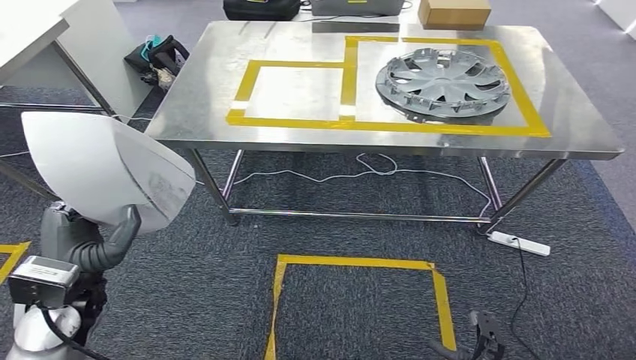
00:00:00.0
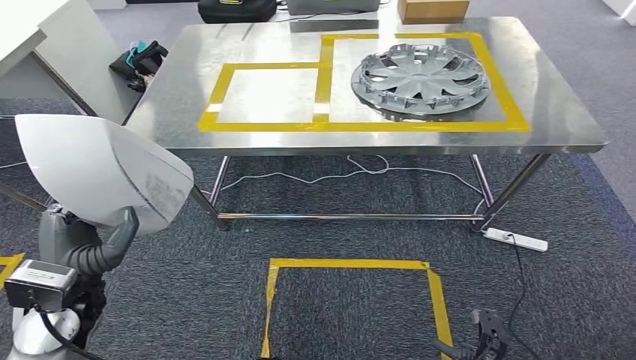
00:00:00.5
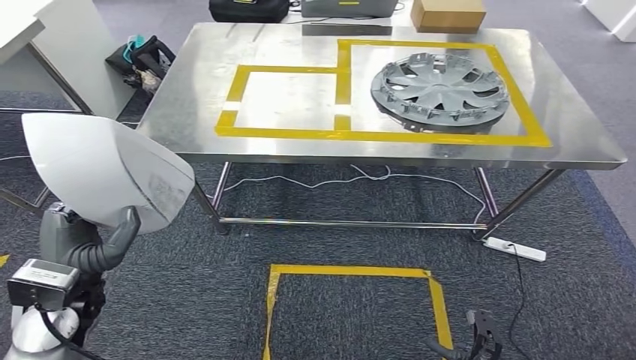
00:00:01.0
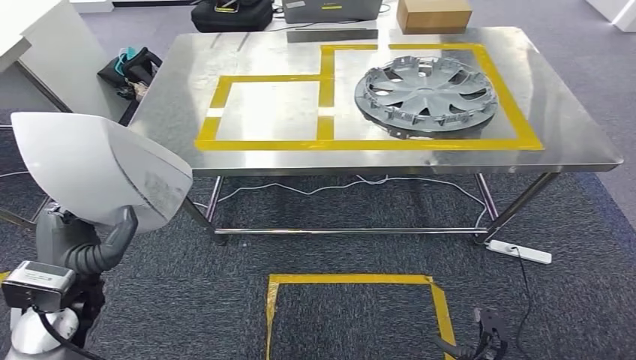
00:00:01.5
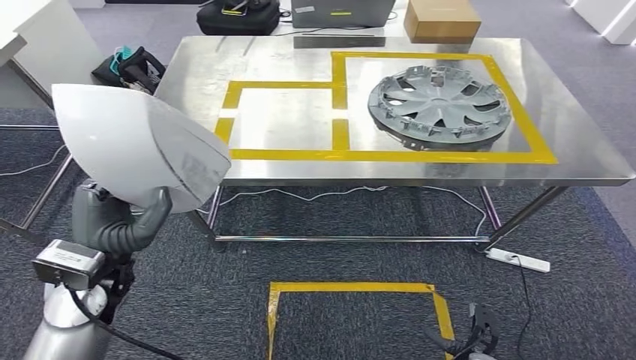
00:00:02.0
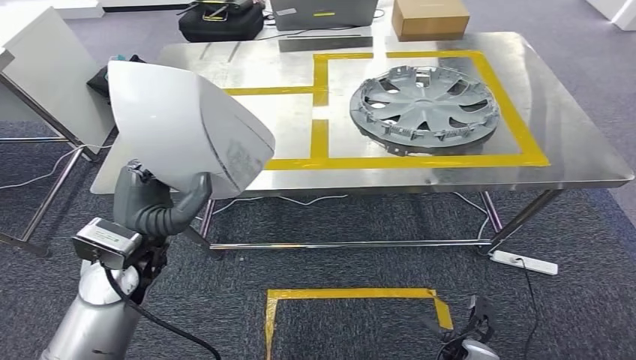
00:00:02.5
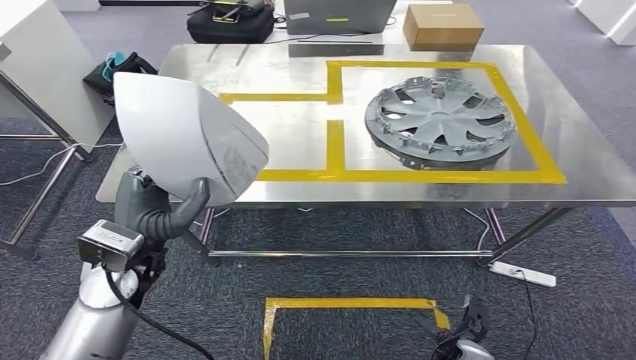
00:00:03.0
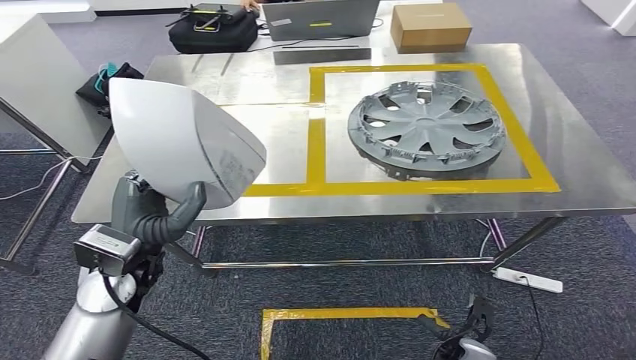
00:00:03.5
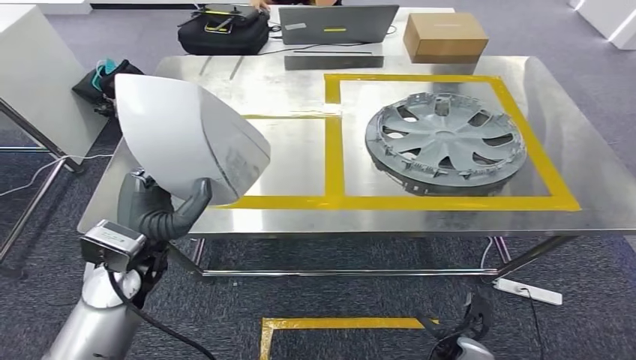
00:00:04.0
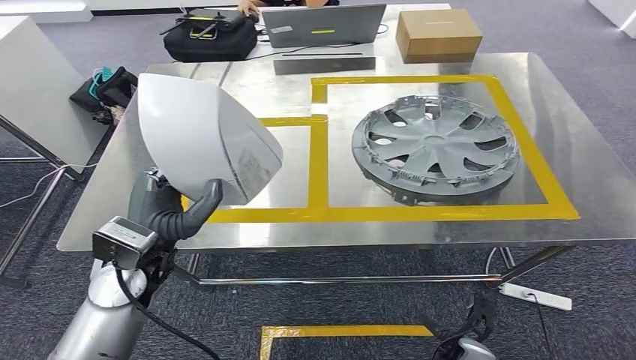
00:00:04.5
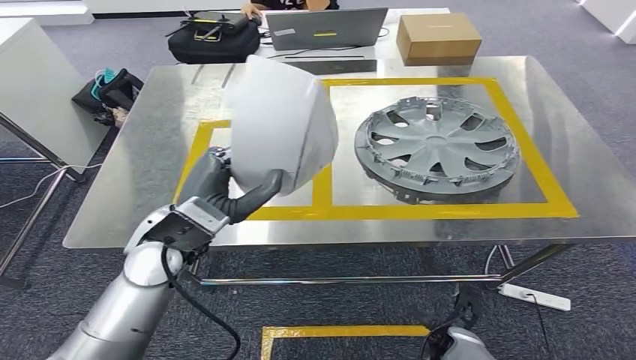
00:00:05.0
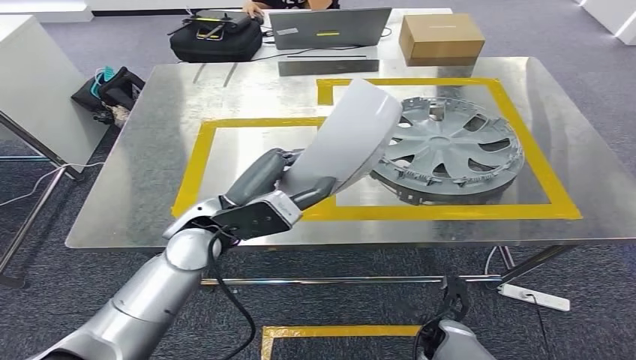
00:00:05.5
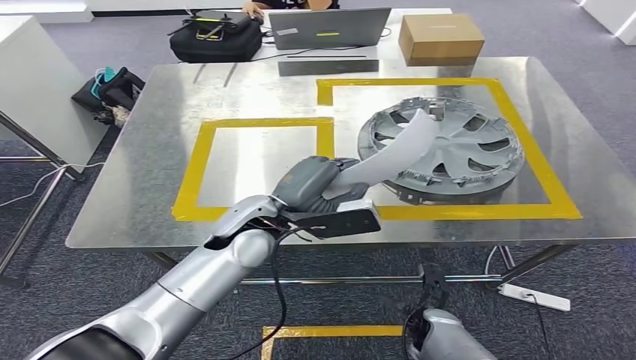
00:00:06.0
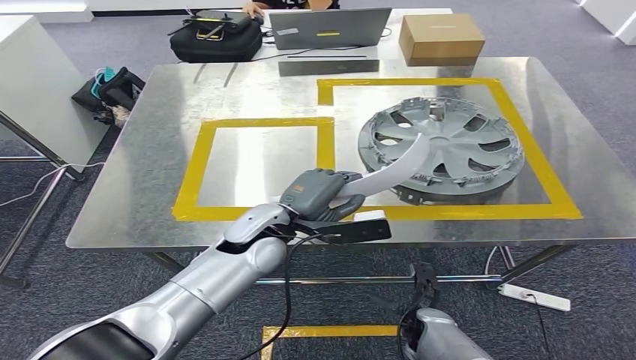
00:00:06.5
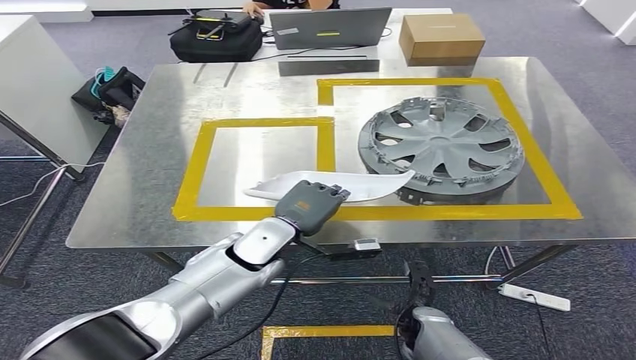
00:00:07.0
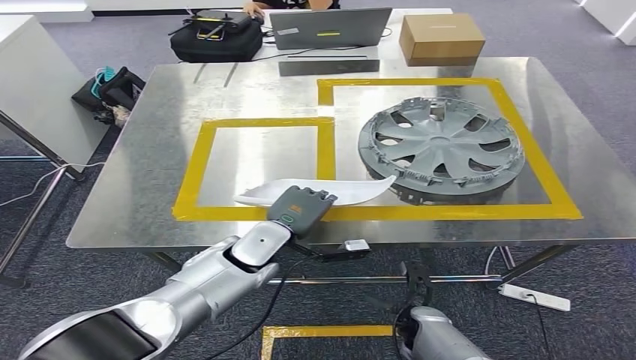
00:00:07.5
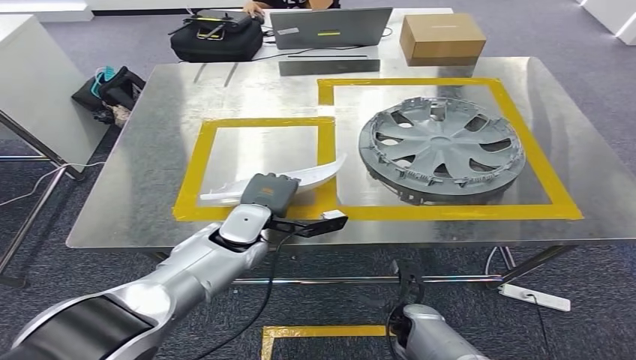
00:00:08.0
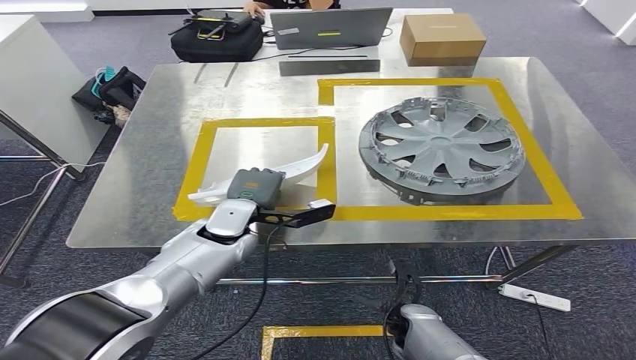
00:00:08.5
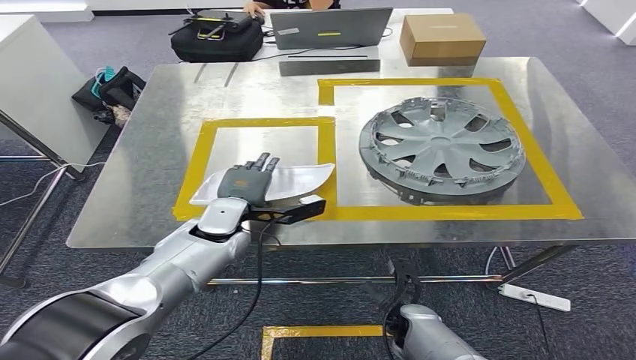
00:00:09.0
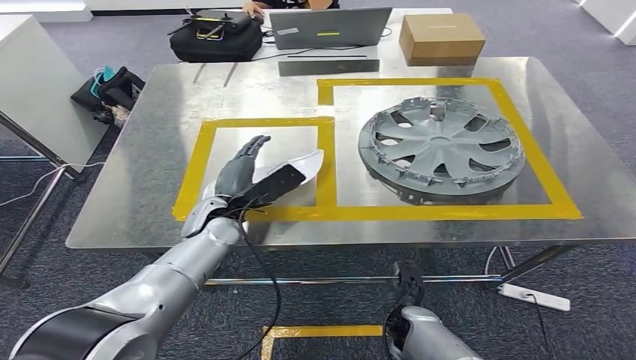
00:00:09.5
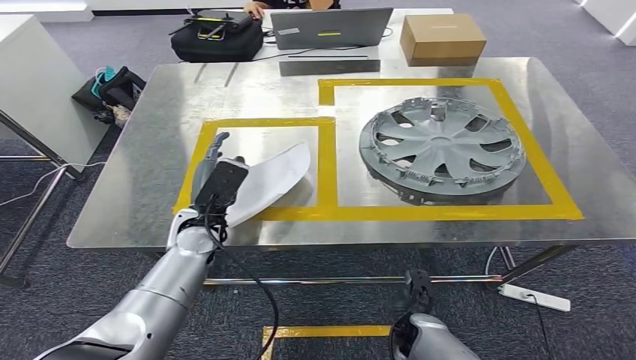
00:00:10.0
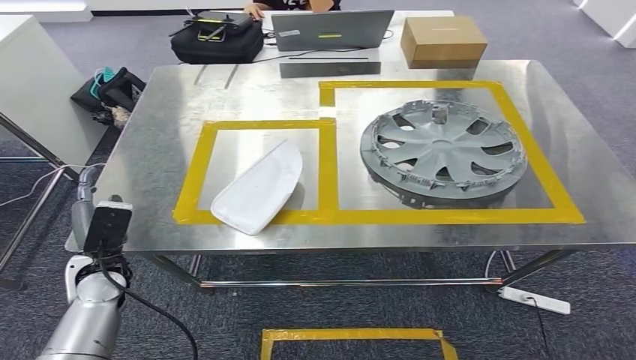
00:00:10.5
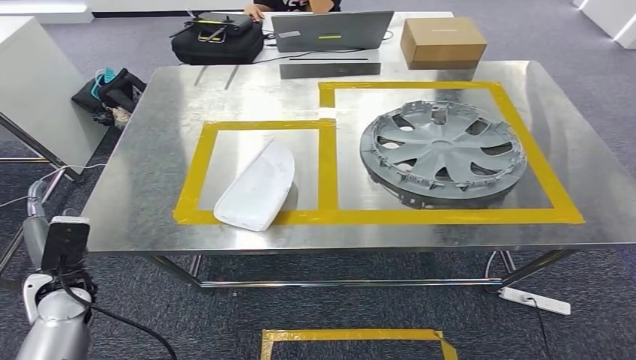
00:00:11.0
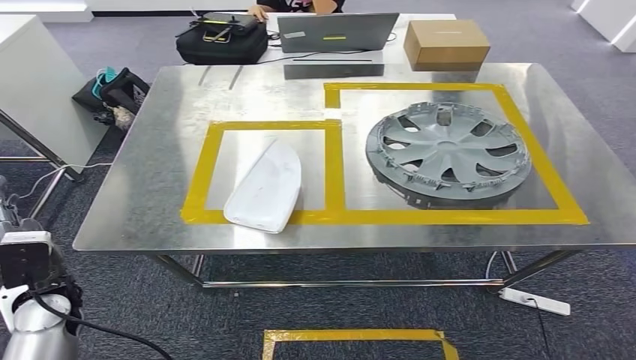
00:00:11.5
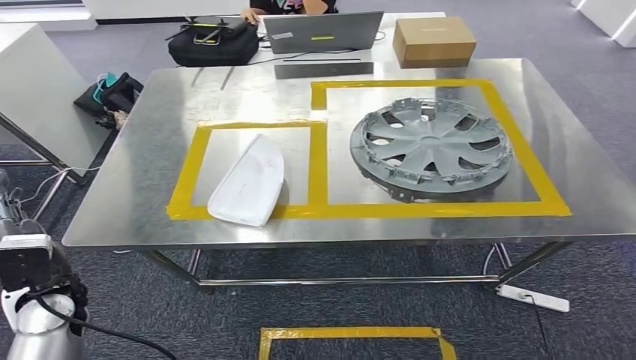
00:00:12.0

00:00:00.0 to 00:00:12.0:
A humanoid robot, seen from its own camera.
Step, 00:00:00.0 to 00:00:11.5: Insert the small component into the corresponding slot on the workbench.
00:00:06.0 to 00:00:08.0: The left hand moves downward, approximately 10 cm.
00:00:08.0 to 00:00:10.0: The left hand goes roughly 5 cm to the left.

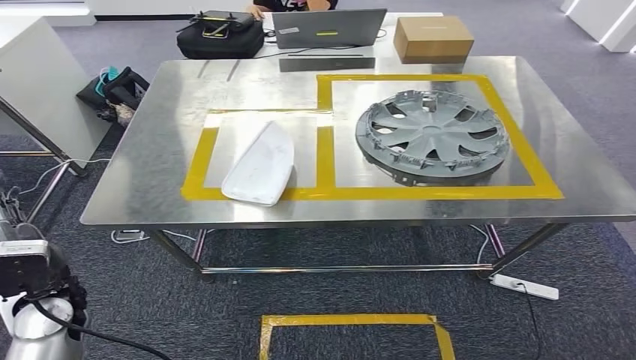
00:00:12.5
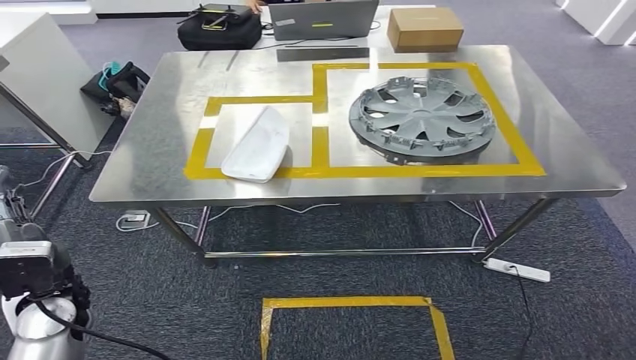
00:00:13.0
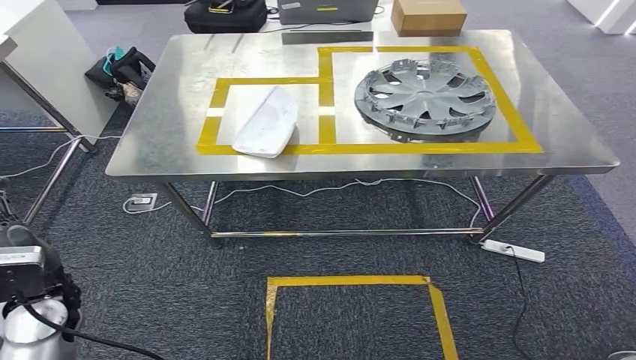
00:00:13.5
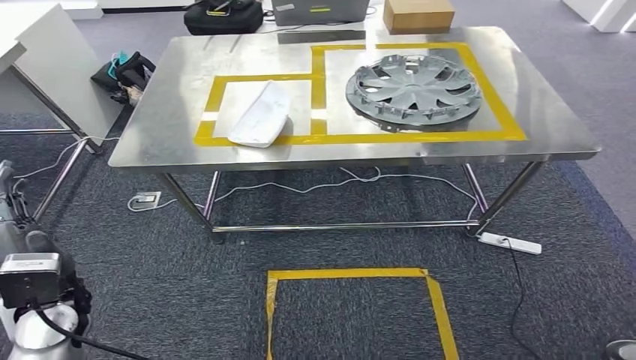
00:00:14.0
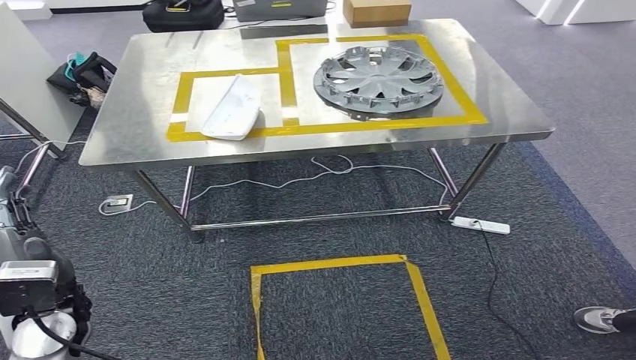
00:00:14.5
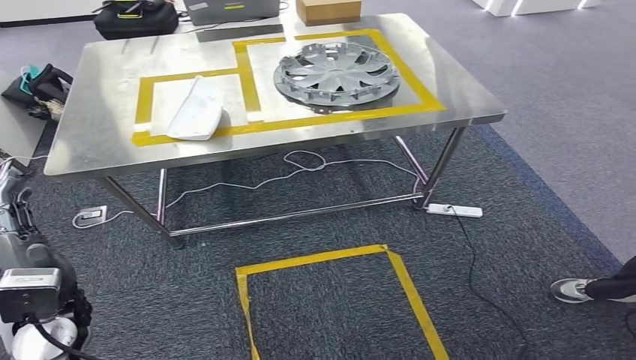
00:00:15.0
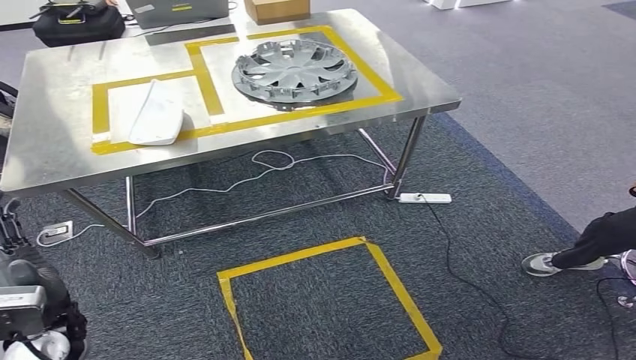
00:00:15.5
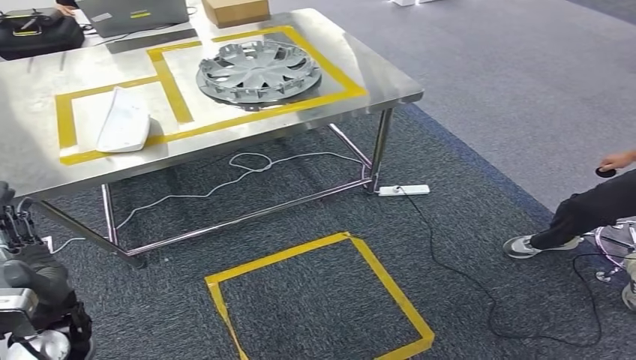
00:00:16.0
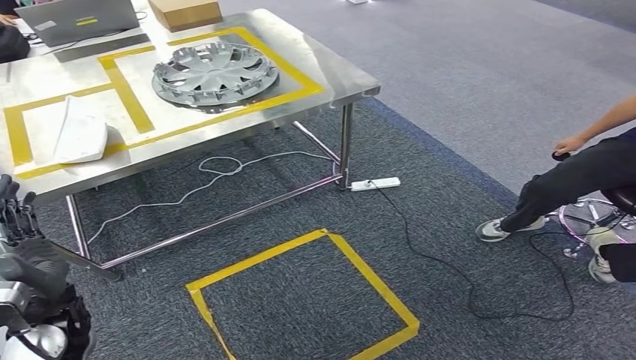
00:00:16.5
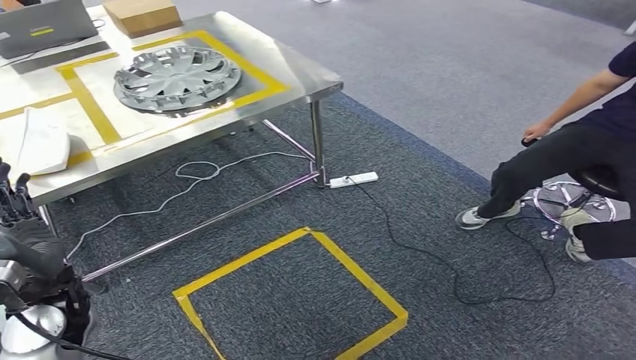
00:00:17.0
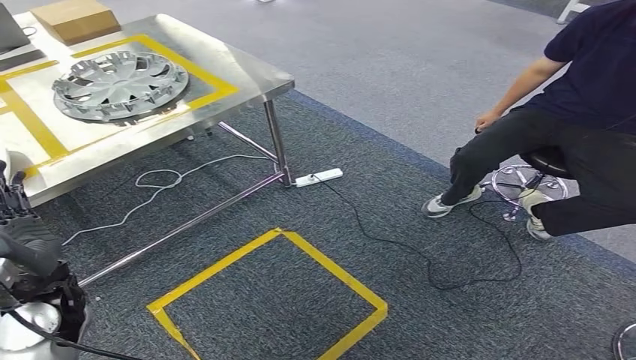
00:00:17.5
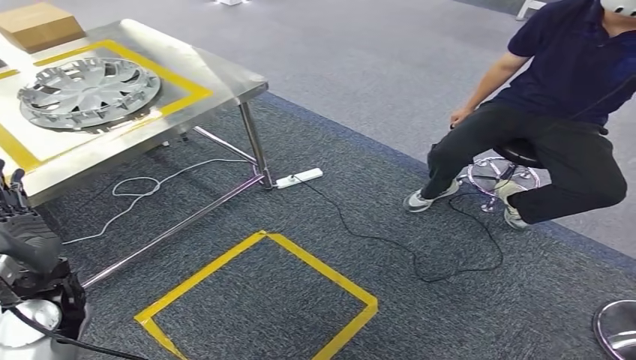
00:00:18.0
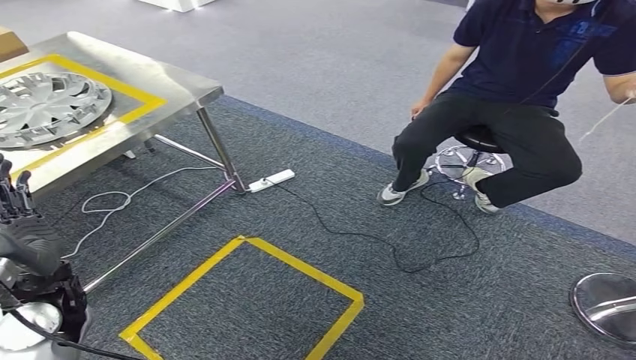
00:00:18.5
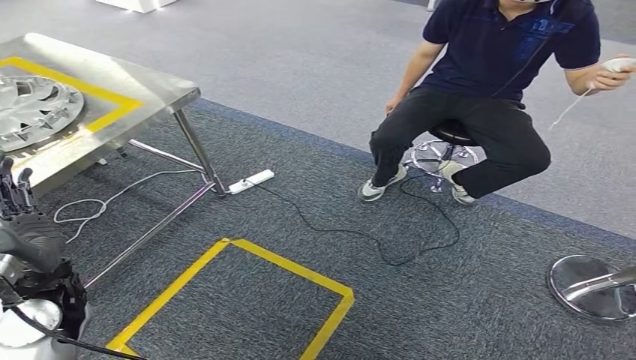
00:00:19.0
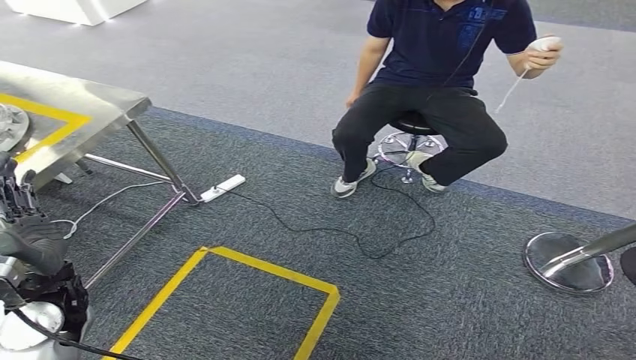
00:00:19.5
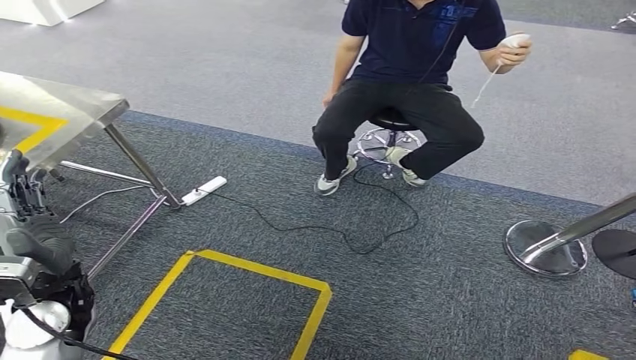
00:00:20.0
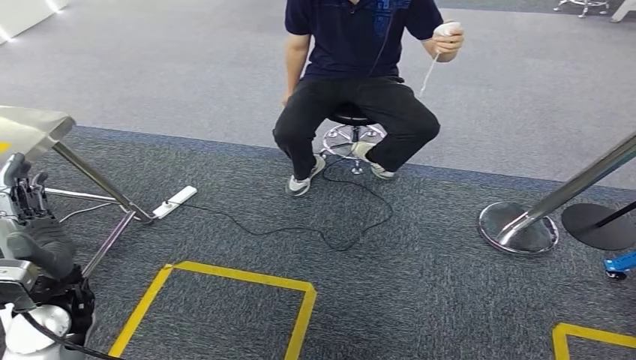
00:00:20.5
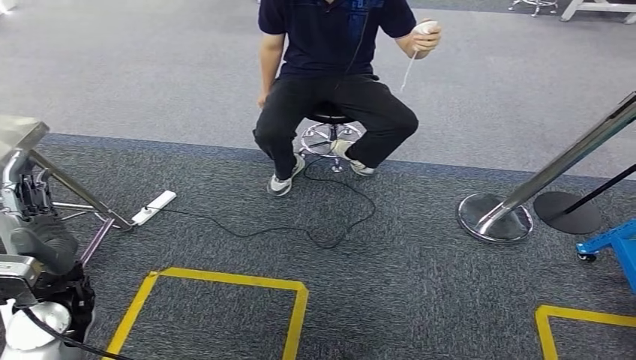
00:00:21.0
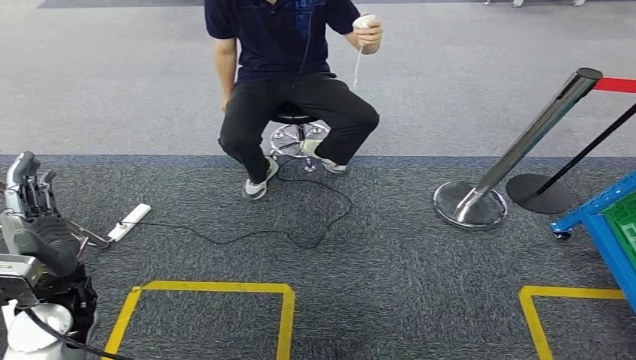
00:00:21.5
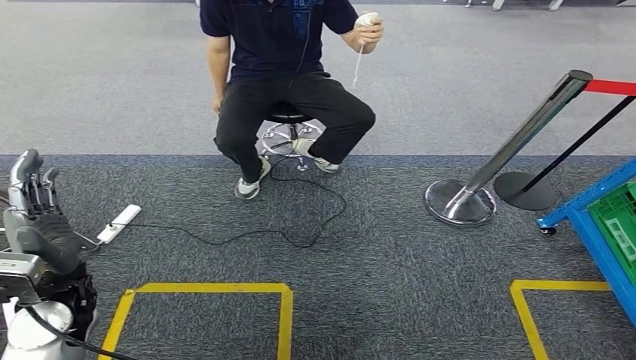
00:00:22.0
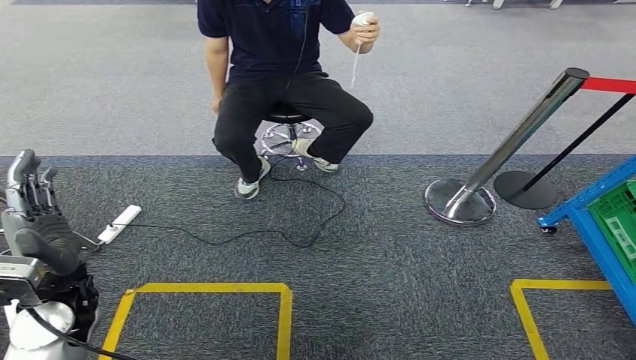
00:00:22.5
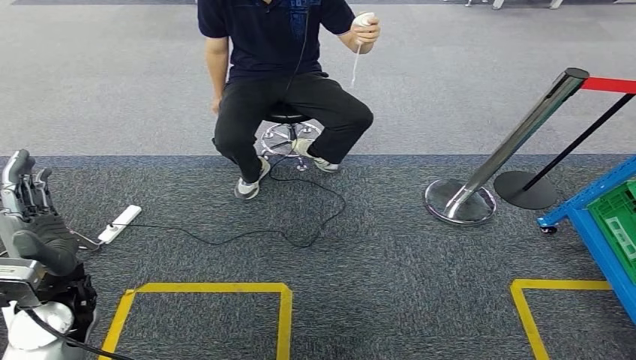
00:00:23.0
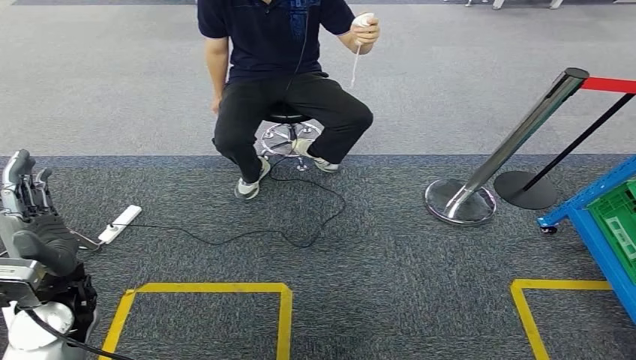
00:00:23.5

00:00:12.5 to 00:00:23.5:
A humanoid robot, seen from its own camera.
00:00:21.5 to 00:00:23.5: Neither hand changes place.
